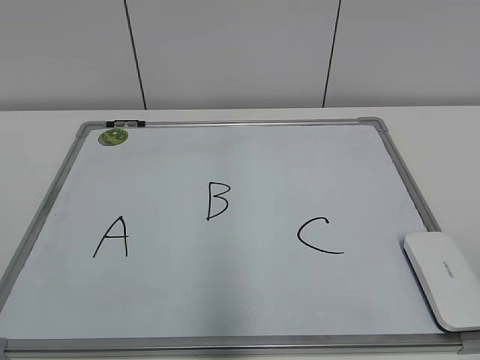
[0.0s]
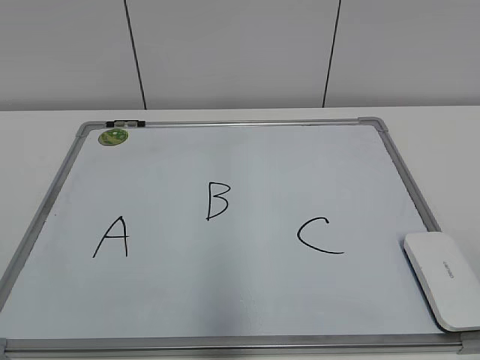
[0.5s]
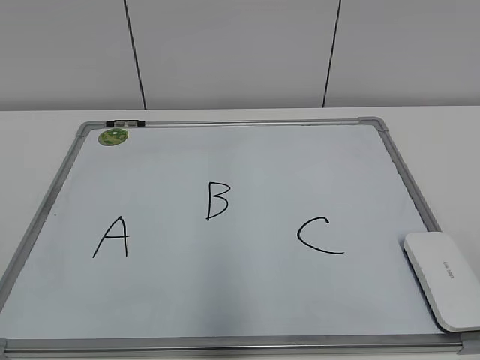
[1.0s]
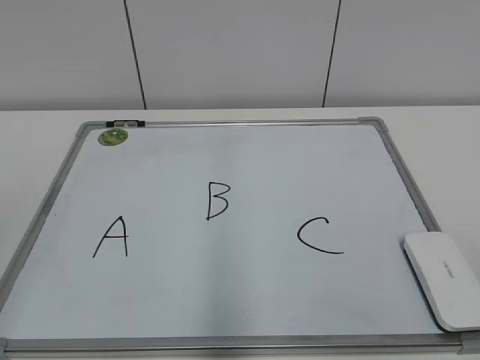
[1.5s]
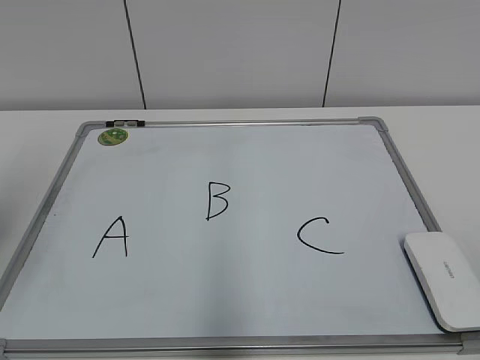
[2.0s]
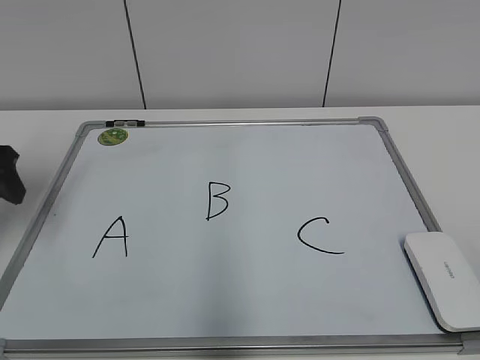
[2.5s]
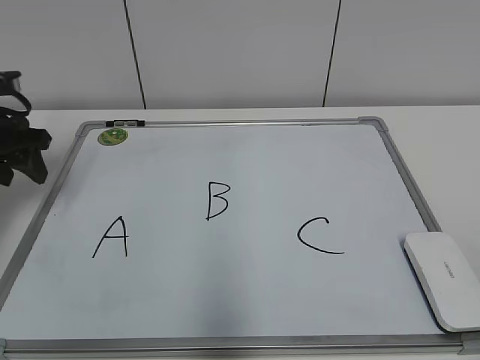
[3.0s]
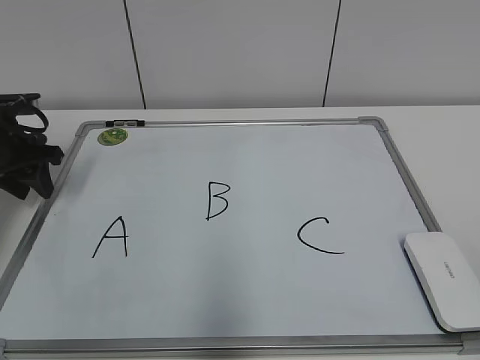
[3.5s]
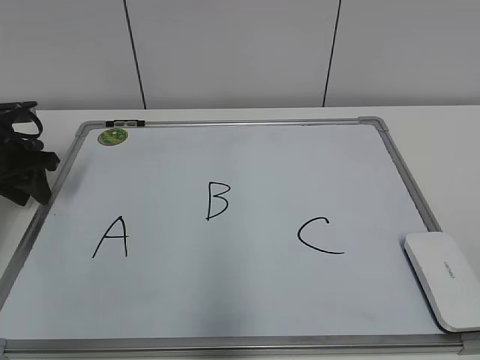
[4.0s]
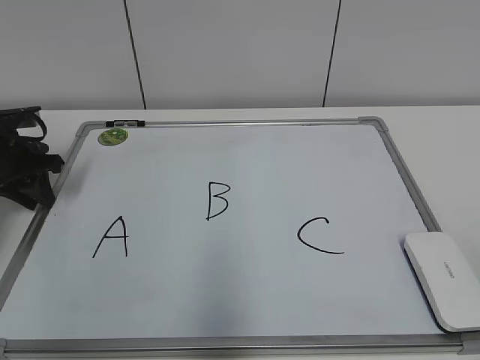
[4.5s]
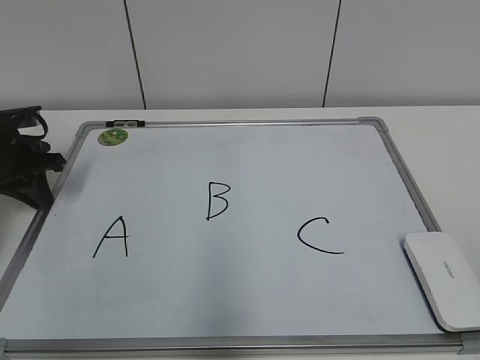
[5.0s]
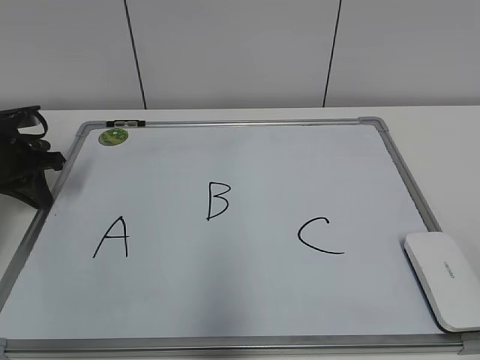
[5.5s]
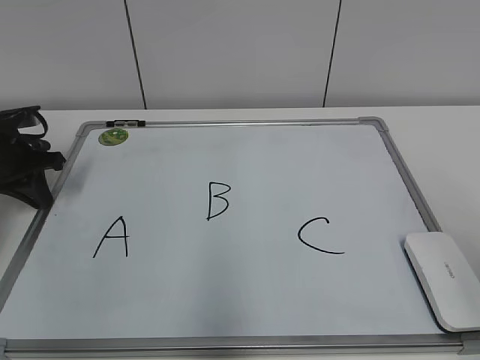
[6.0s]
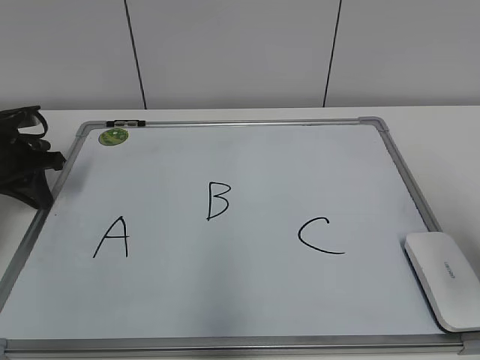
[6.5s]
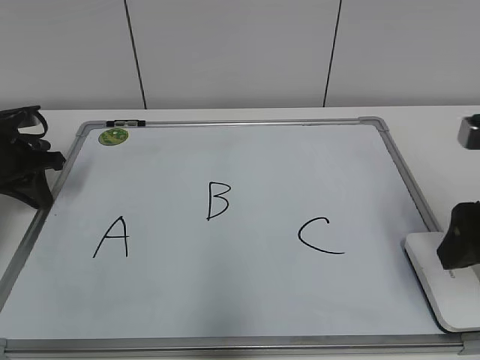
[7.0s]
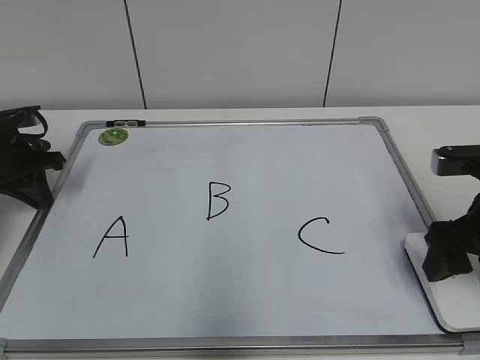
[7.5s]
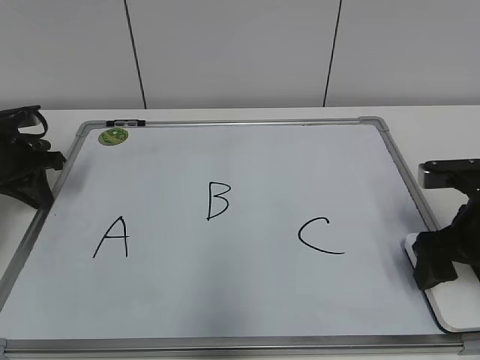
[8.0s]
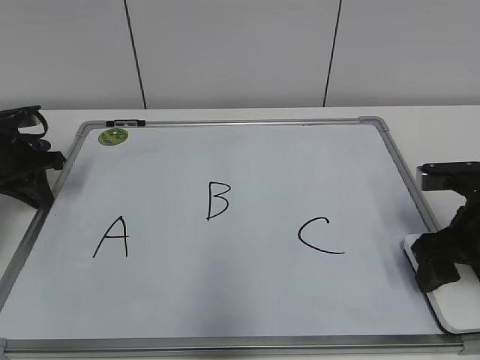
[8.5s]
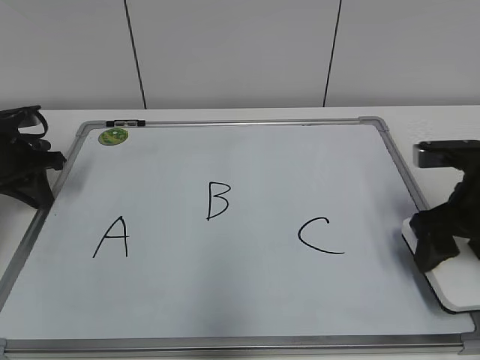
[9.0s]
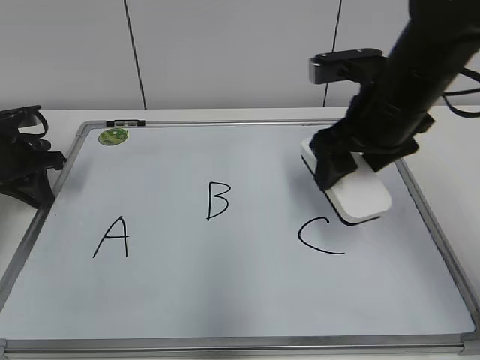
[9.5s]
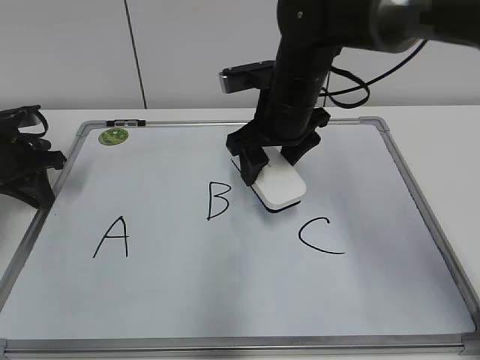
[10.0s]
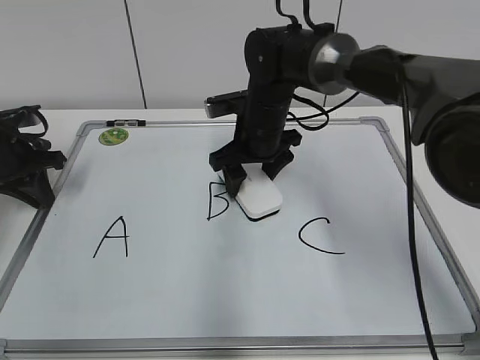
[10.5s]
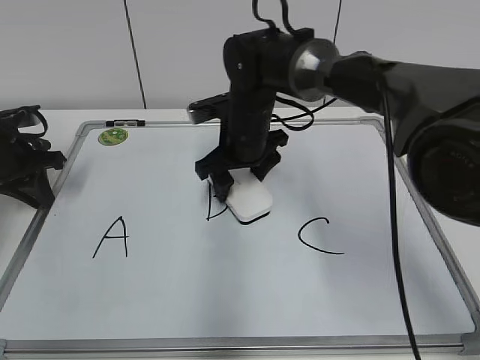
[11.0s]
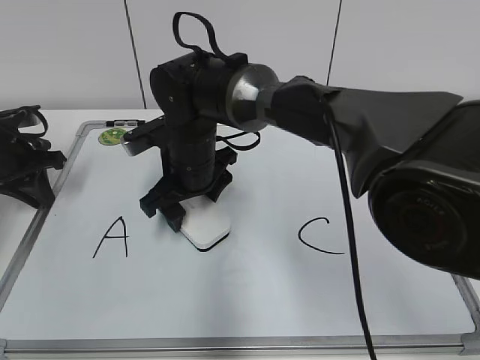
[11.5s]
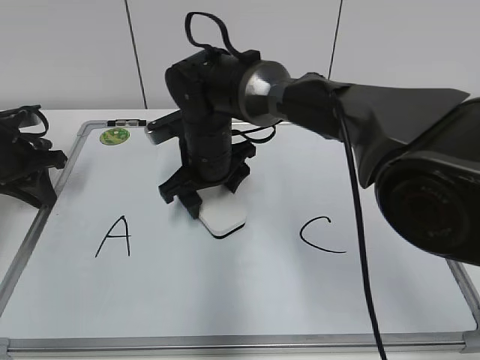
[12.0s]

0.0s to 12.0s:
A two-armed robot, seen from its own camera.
Task of the whole recording: pick up the eraser on the blackboard and erase the letter "B".
Step, 0.0s to 4.5s: Hold the drawing board steady with your left hand.
Step, 5.5s to 8.0s: Grab the eraser with your right hand.
2.0s to 4.0s: The left gripper heads forward and downward, covering roughly 25 cm, and closes up.
4.0s to 6.0s: The left gripper closes up.
6.0s to 8.0s: The right gripper travels forward and downward by roughly 25 cm.
8.0s to 10.0s: The right gripper shifts some 25 cm to the left and forward.
10.0s to 12.0s: The right gripper moves to the left and downward, some 10 cm.

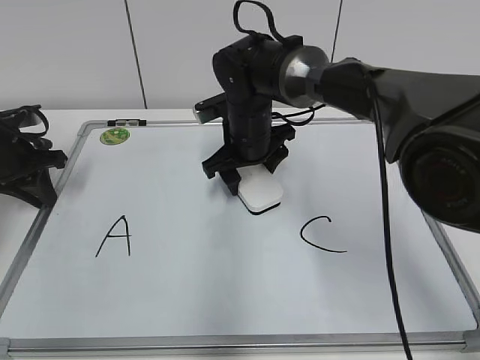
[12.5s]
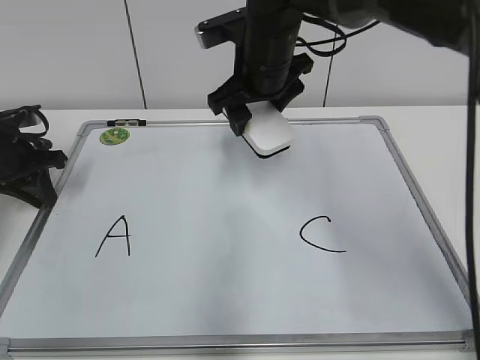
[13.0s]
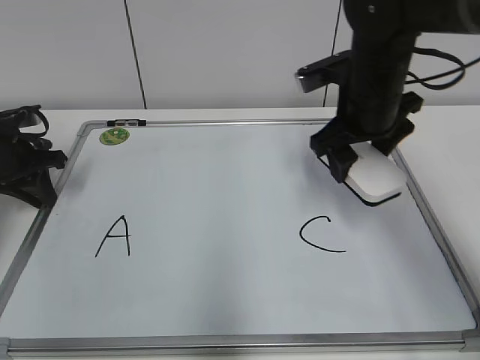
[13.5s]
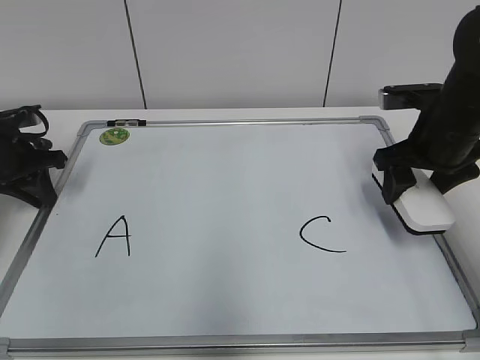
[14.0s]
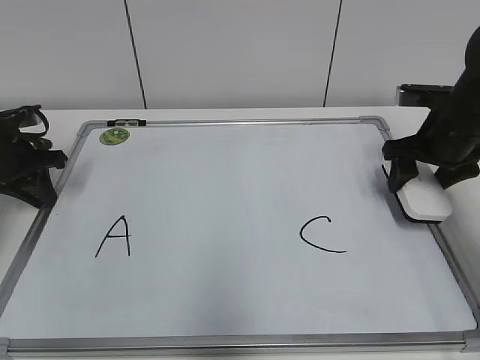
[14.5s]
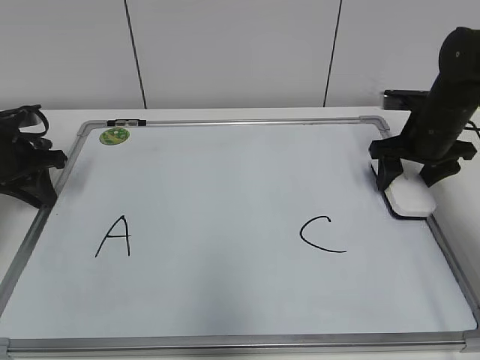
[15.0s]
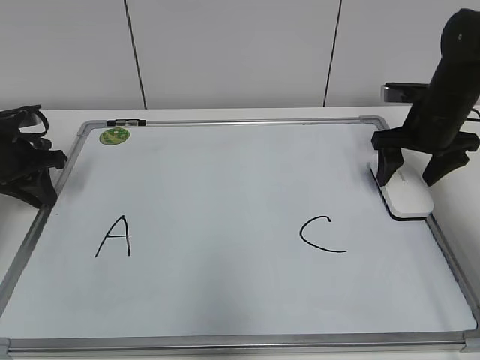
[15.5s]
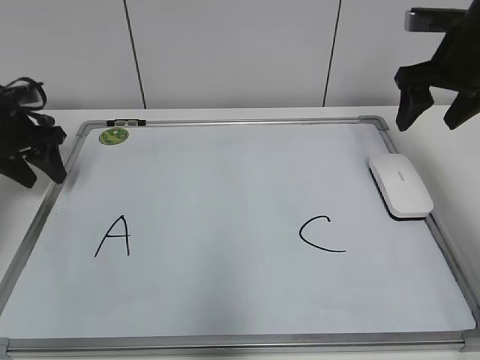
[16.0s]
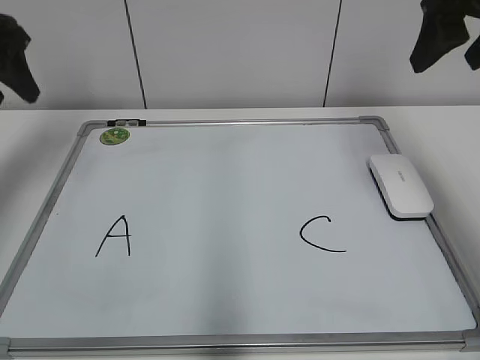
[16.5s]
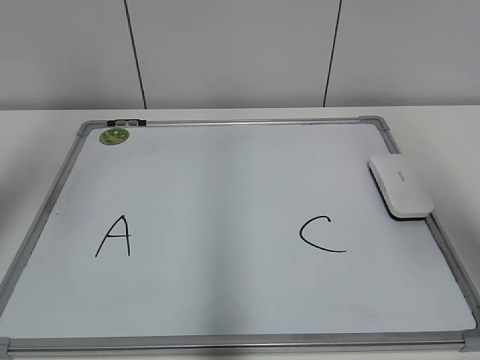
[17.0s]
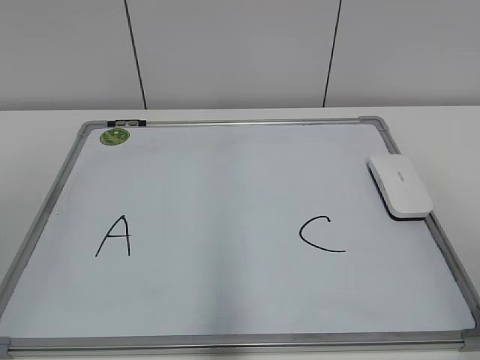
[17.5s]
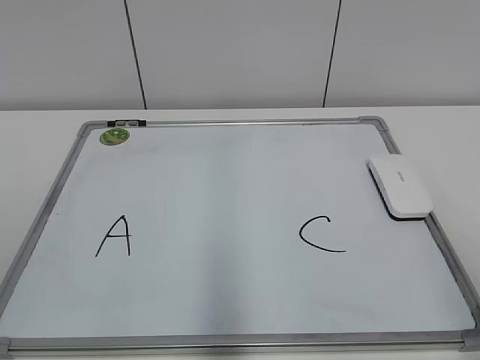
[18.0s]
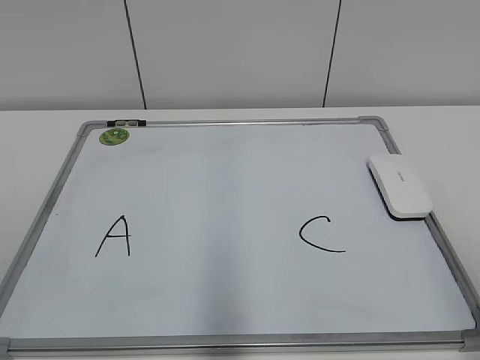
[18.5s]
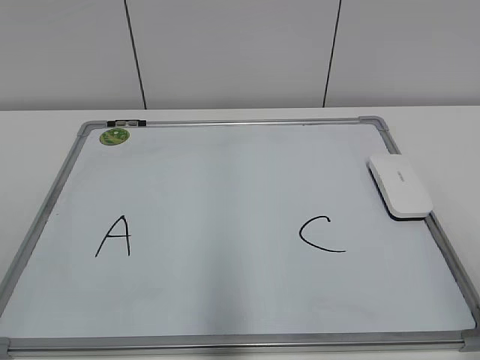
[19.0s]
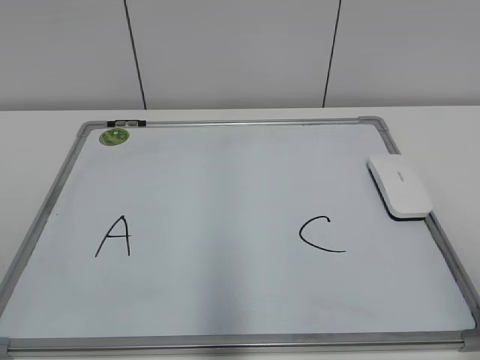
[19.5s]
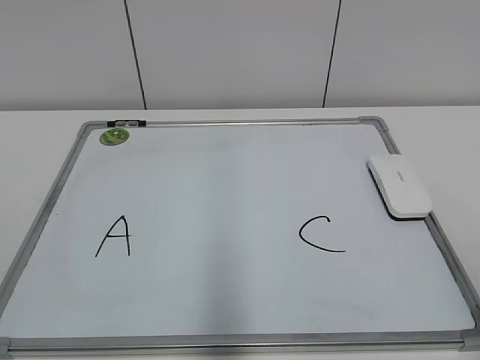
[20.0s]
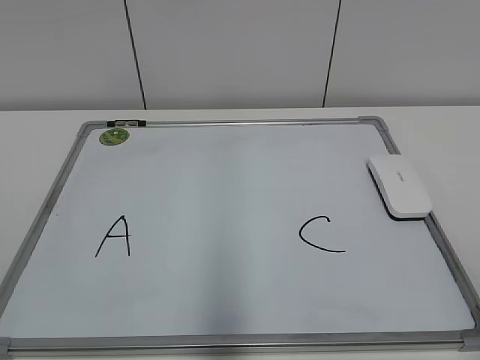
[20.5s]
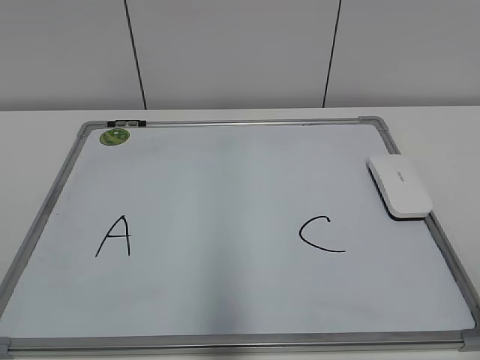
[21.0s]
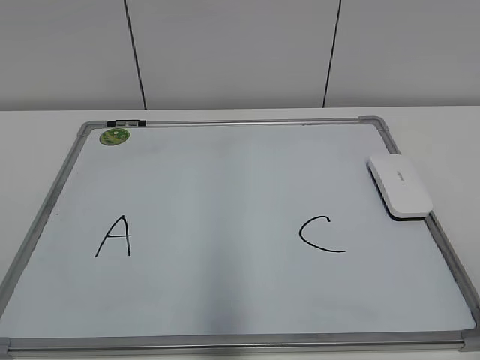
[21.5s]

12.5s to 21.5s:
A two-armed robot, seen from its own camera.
Task of the whole recording: pick up the eraser on the blackboard and erase the letter "B".
Step, 12.5s to 15.0s: Put down the eraser with your right hand.
12.5s to 14.5s: The right gripper travels to the right by roughly 25 cm.
14.5s to 17.0s: The two grippers go some 30 cm upward and backward. The left gripper opens up.
17.0s to 19.5s: The grippers both shift backward and downward by approximately 25 cm.
